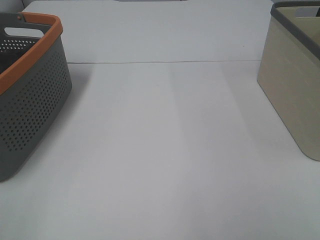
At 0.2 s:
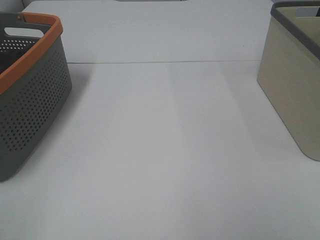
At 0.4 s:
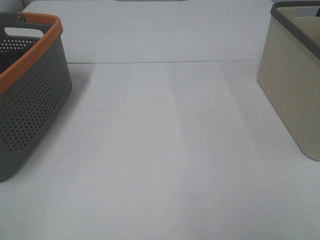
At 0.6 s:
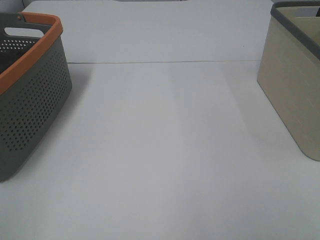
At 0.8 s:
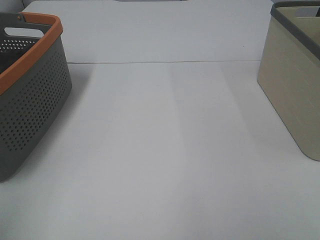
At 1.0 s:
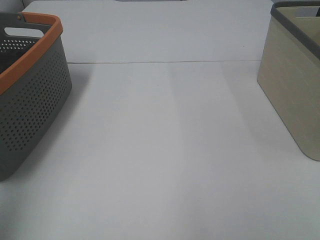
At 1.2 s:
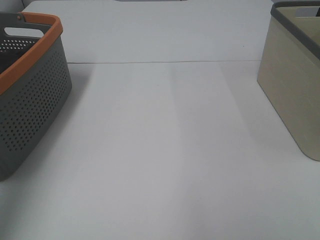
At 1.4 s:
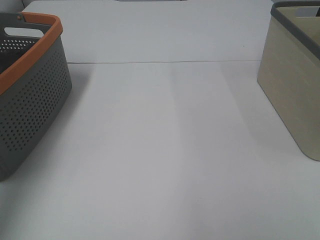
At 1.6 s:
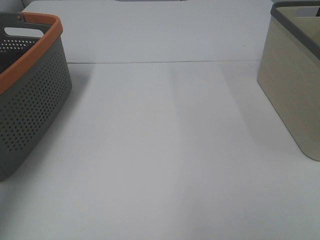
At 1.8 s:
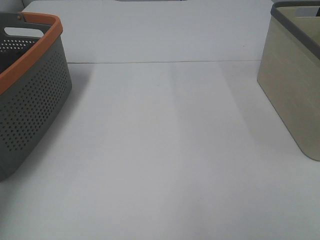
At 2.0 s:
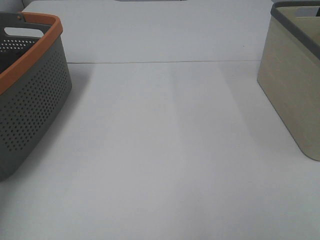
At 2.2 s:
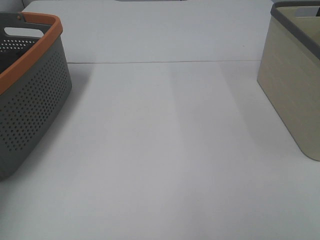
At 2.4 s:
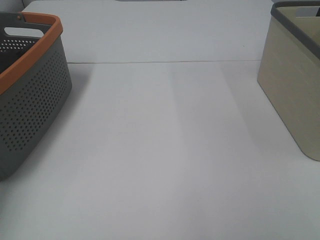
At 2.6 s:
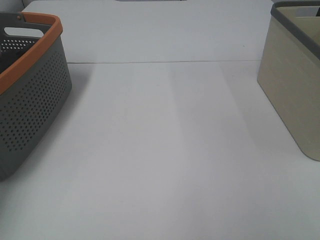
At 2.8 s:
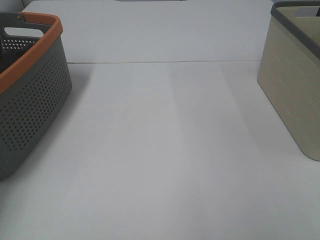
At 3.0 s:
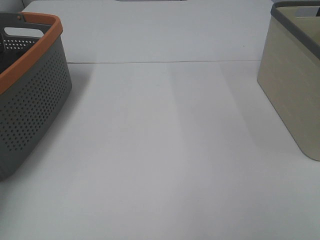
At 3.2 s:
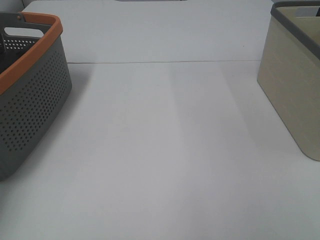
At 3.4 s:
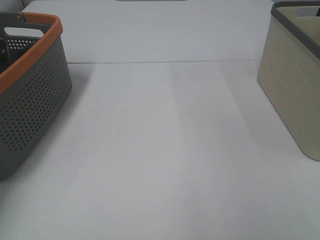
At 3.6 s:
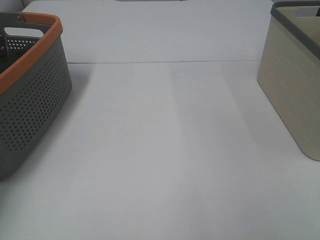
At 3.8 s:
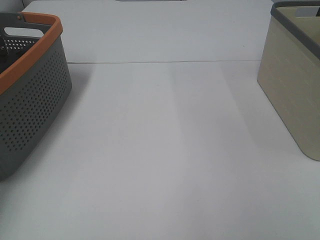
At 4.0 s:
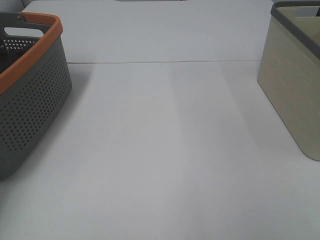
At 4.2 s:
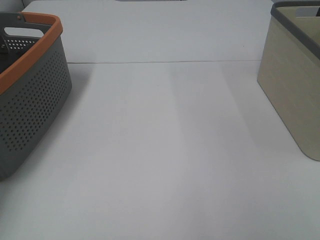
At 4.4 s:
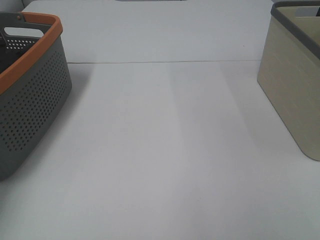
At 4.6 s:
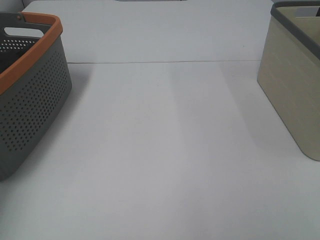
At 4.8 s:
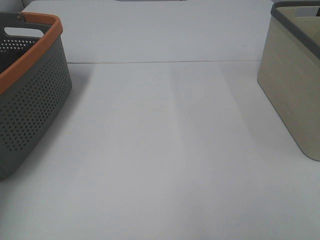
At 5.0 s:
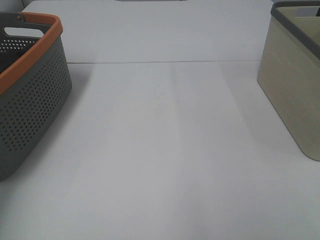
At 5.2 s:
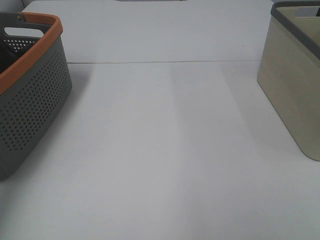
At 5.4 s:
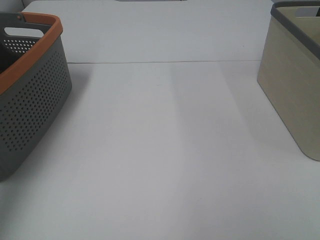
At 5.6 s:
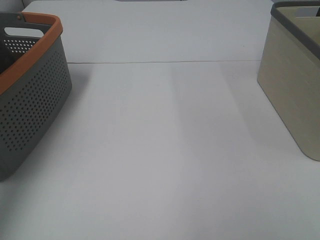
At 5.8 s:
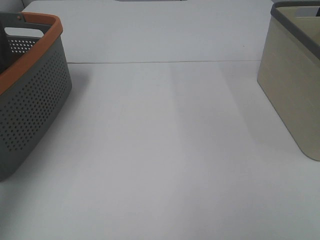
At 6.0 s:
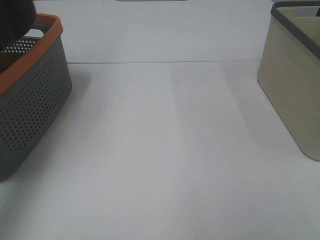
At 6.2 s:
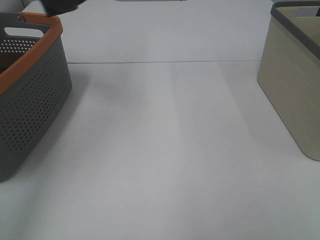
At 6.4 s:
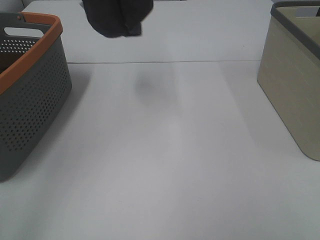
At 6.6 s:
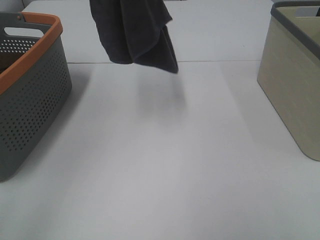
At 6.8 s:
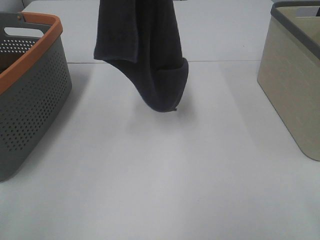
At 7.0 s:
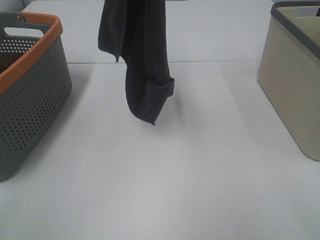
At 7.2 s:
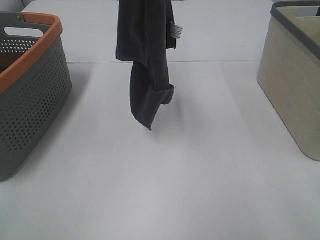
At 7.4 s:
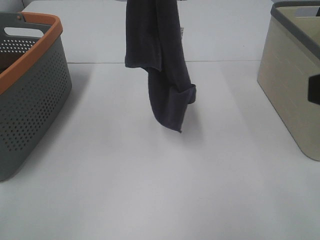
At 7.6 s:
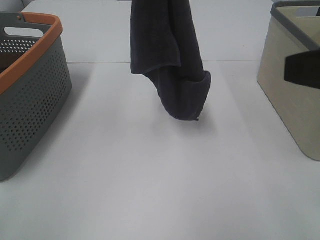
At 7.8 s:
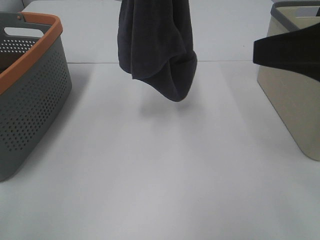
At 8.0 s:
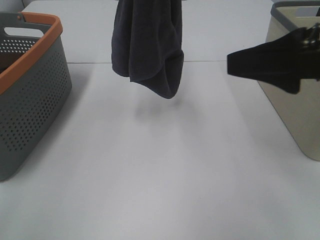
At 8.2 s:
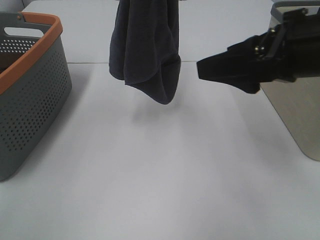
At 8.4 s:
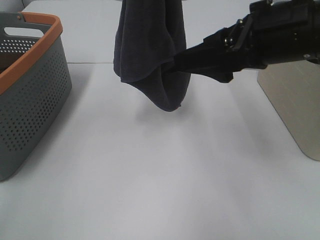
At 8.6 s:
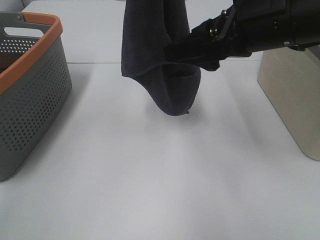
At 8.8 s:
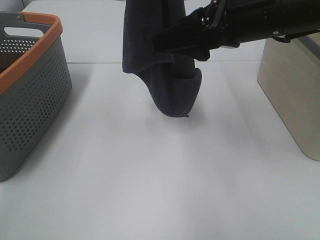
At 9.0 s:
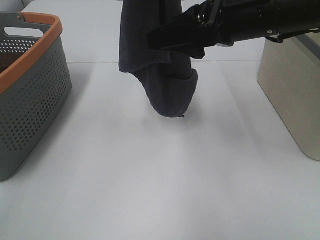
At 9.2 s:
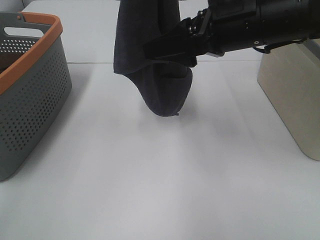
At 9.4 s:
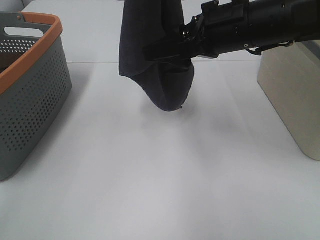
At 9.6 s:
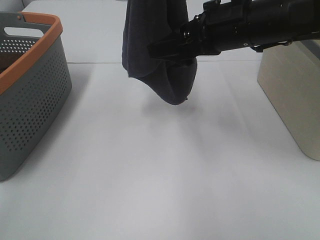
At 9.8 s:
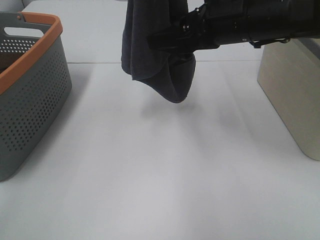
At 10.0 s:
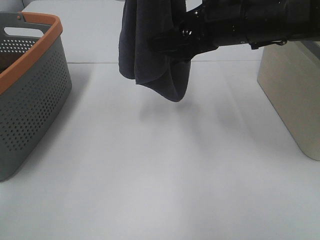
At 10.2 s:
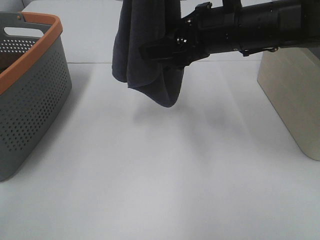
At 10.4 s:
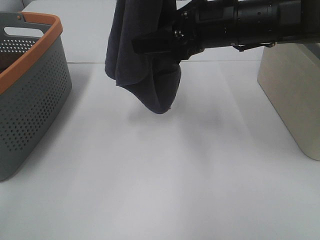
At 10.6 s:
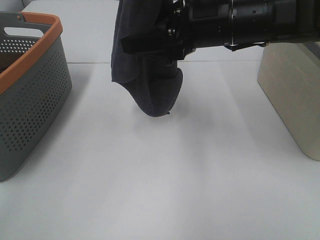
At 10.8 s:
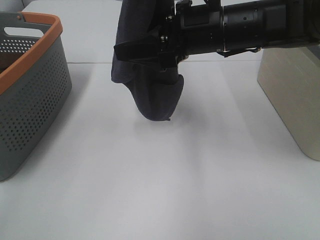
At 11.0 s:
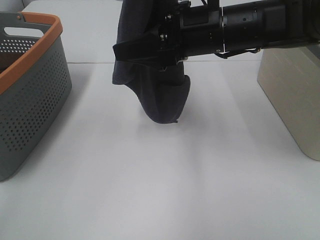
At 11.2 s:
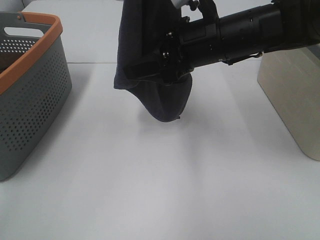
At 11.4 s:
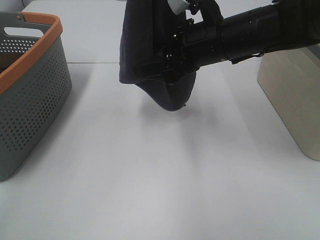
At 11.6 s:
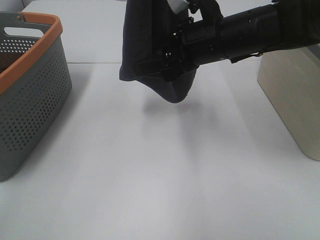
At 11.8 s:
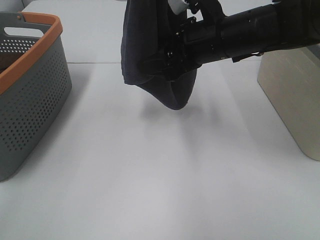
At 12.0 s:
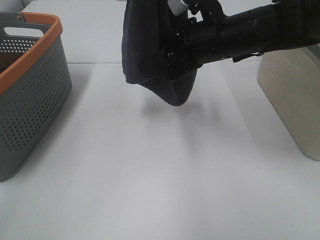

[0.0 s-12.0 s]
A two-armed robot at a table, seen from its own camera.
Task of the whole recording: Remove the towel and place it.
0.0 to 1.6 s: The left gripper is displaced forward by roughly 30 cm.
4.4 to 6.0 s: The left gripper shifts roughly 35 cm upward.
6.0 to 7.6 s: The left gripper is displaced to the right by roughly 20 cm. The right gripper heads forward, covering some 15 cm.
7.6 to 9.0 s: The right gripper goes roughly 20 cm forward and to the left.
9.0 to 10.4 s: The right gripper shifts by roughly 5 cm.
10.4 to 12.0 s: There are only small adjustments of the grippers.

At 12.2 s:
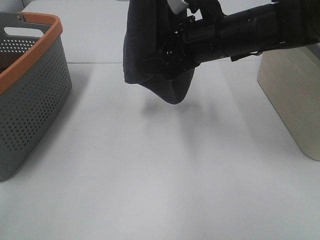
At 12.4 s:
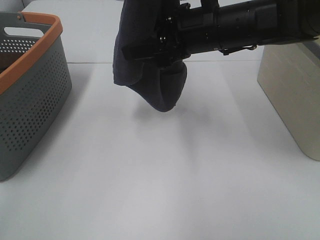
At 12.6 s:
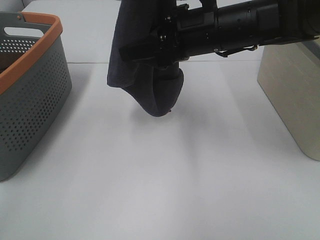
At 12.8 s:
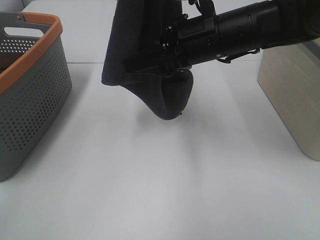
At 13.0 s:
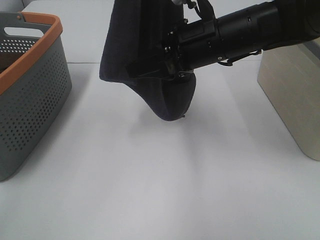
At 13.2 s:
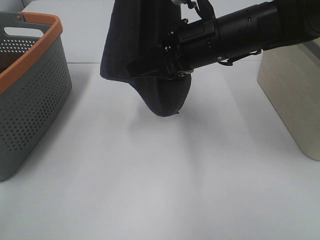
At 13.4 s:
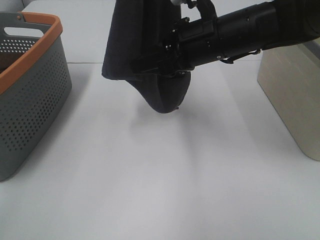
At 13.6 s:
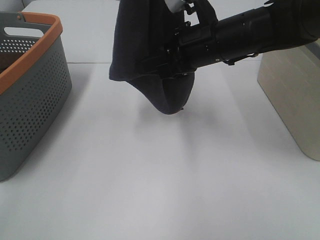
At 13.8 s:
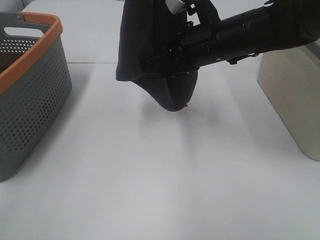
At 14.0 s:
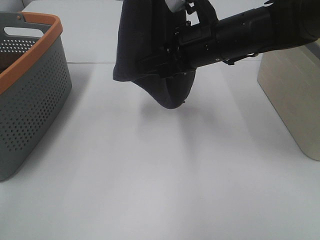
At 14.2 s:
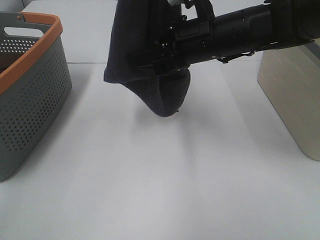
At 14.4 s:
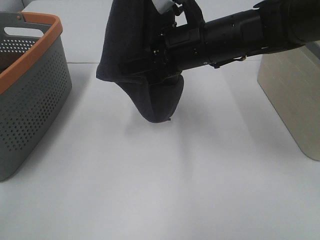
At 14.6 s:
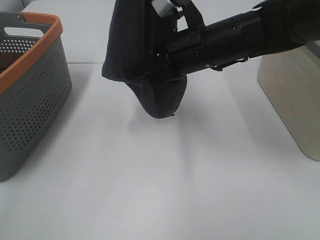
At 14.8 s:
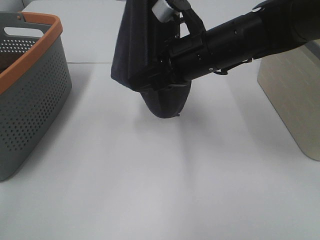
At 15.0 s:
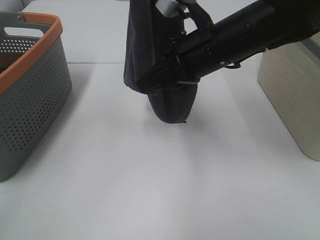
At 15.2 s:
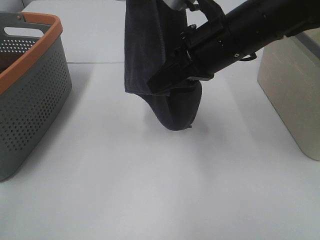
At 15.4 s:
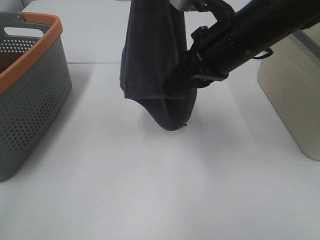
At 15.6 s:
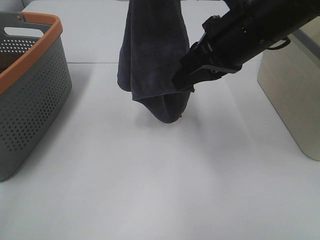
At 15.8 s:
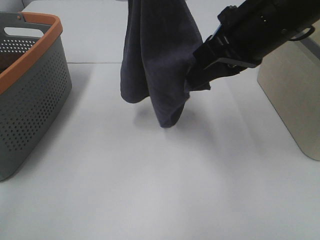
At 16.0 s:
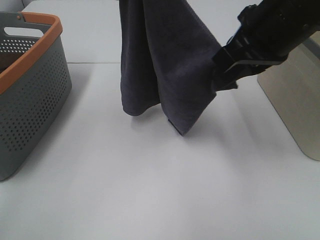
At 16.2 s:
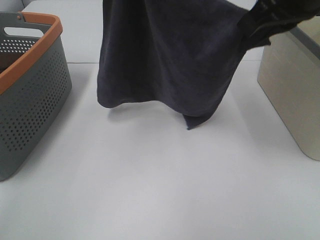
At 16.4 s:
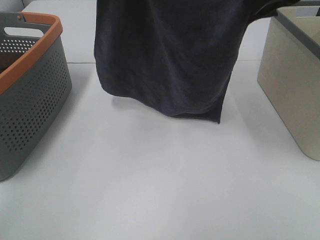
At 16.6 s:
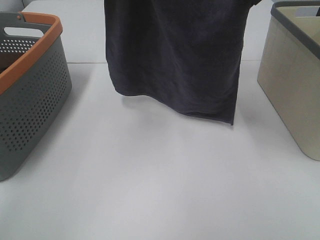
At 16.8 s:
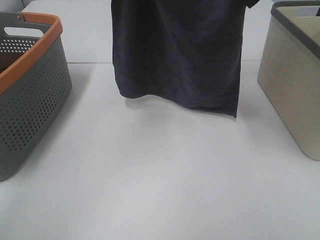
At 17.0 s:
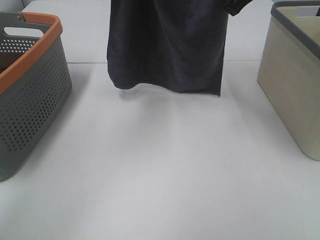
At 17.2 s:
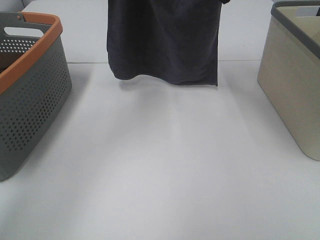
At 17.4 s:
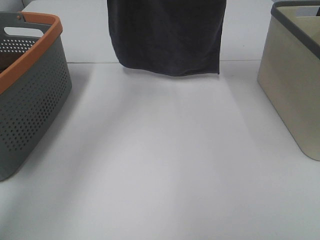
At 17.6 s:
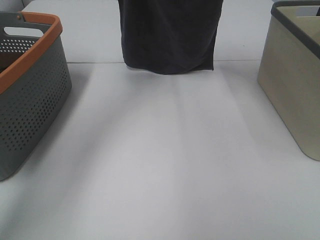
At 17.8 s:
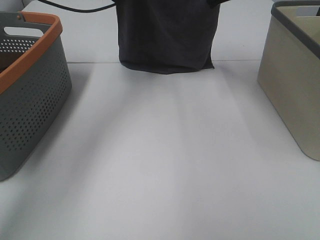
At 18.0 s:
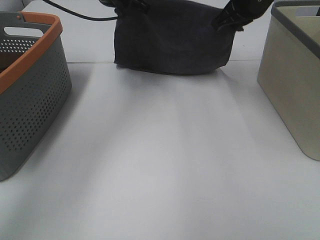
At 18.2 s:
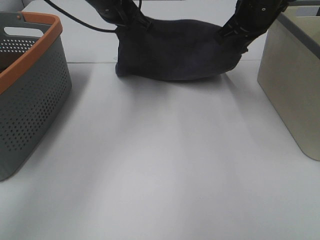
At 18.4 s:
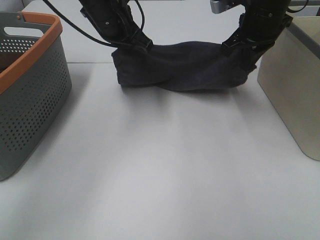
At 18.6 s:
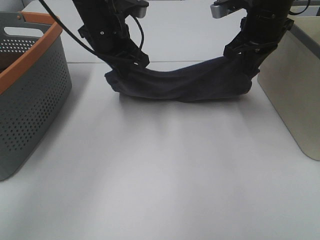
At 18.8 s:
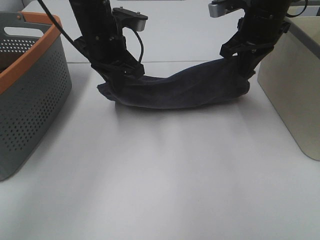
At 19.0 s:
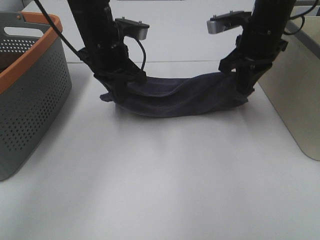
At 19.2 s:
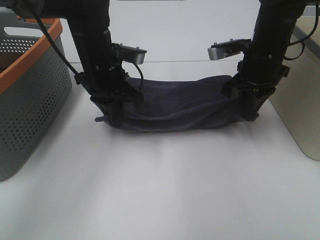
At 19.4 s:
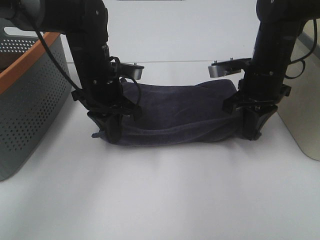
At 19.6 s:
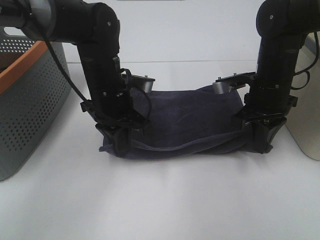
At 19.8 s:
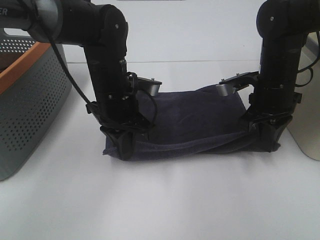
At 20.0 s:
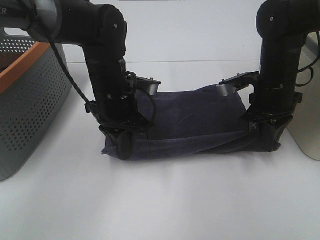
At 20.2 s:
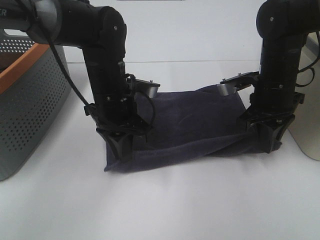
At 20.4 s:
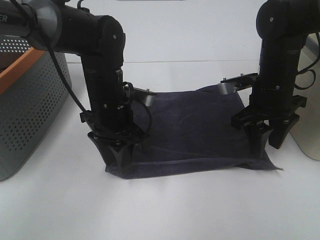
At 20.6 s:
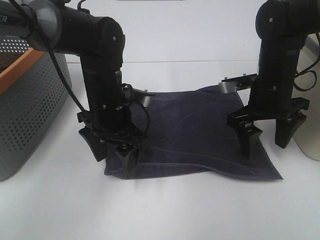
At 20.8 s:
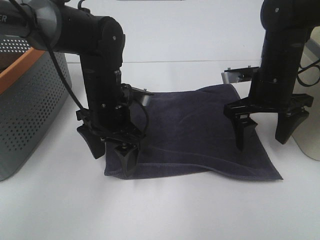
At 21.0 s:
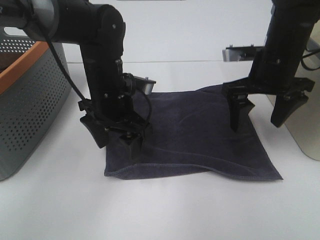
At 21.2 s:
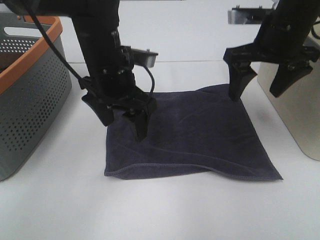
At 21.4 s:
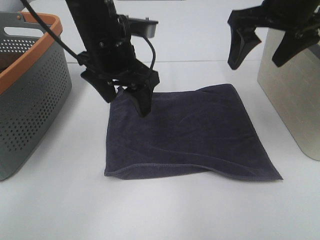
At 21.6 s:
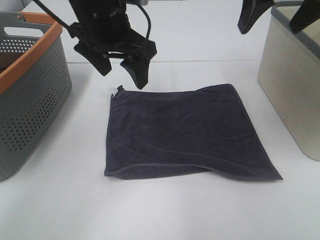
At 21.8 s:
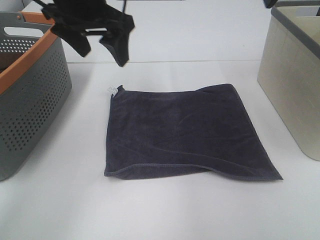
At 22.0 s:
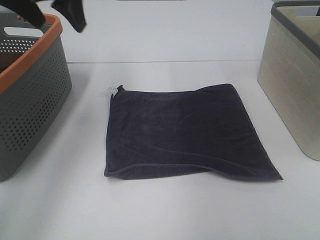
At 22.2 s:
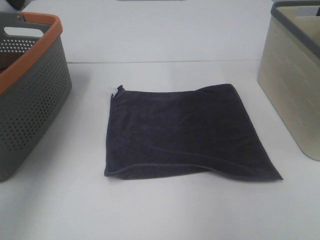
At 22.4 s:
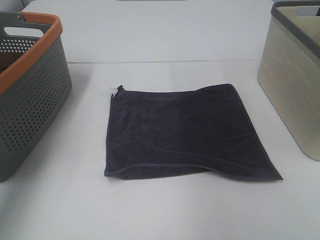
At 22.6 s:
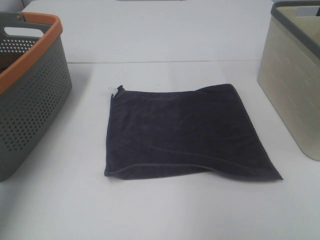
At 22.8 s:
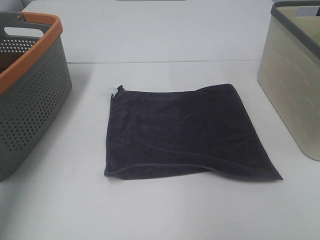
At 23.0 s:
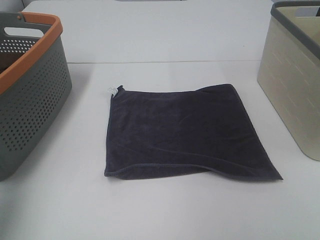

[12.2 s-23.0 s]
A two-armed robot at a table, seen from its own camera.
Task of the whole recording: Remove the towel and place it.
Step, 13.4 to 16.0 s: Left hand: spread the grey towel flat on the table.
Step, 13.4 to 16.0 s: Right hand: spread the grey towel flat on the table.
12.2 to 13.8 s: The right gripper closes up.
13.8 to 15.2 s: The right gripper ends up roughly 5 cm from where it was, and closes up.
15.2 to 16.8 s: The left gripper is displaced downward and forward by roughly 10 cm; the right gripper heads upward and to the right, covering approximately 15 cm.
16.8 to 18.4 s: The left gripper heads downward, covering about 15 cm. The right gripper moves downward and forward, approximately 15 cm.
18.4 to 20.0 s: The right gripper travels downward and backward by some 10 cm, while the left gripper travels backward and downward by some 15 cm.
20.0 to 21.4 s: The left gripper travels upward by roughly 10 cm, and opens. Meanwhile the right gripper heads upward, covering some 15 cm, and opens its fingers.
21.4 to 23.0 s: The left gripper travels to the left, backward and upward by approximately 35 cm, while the right gripper travels backward by roughly 30 cm.
